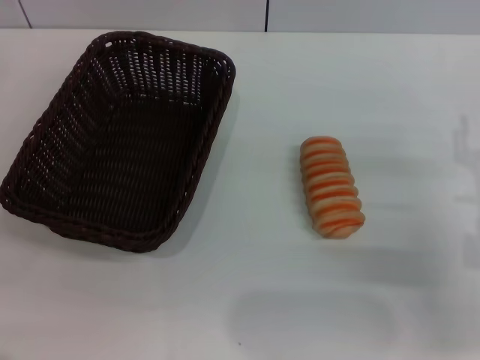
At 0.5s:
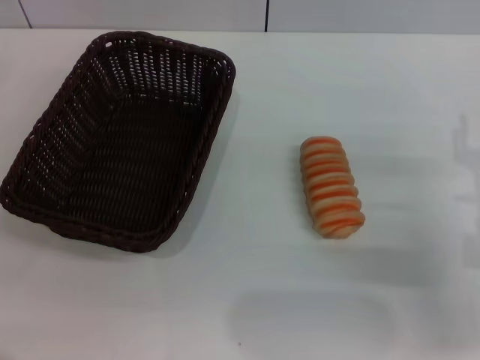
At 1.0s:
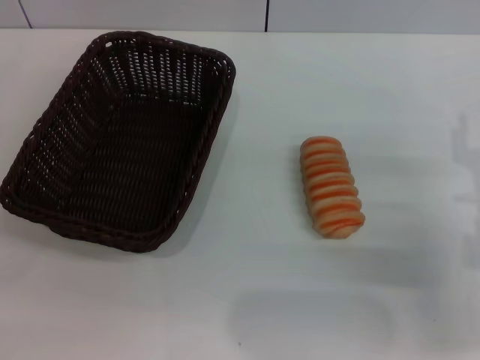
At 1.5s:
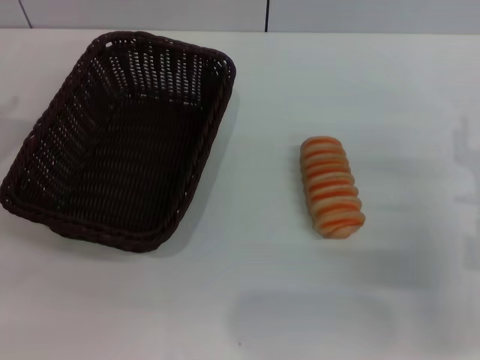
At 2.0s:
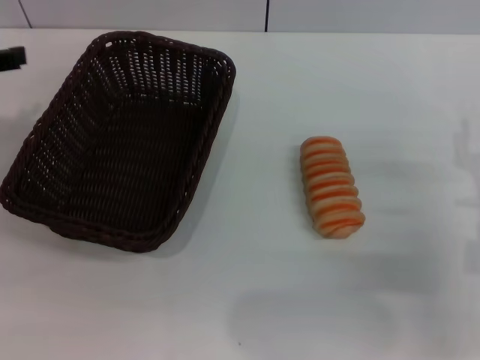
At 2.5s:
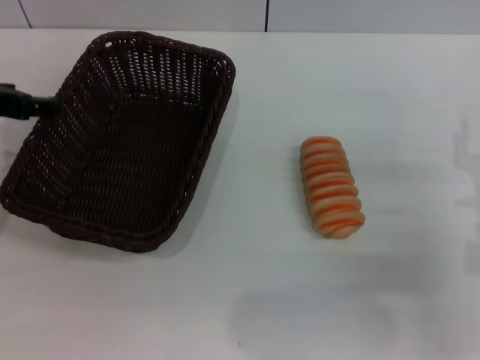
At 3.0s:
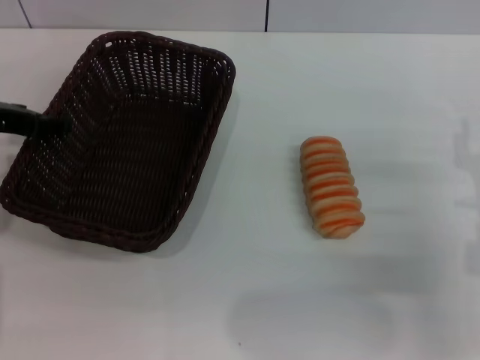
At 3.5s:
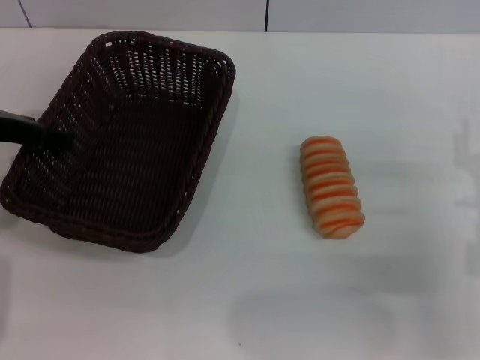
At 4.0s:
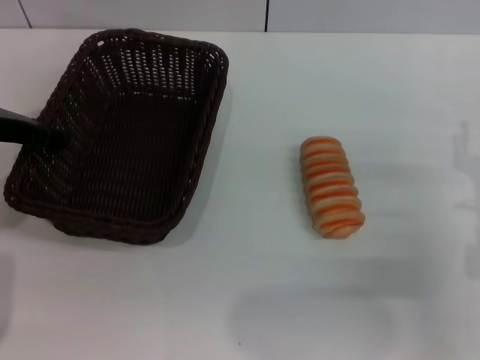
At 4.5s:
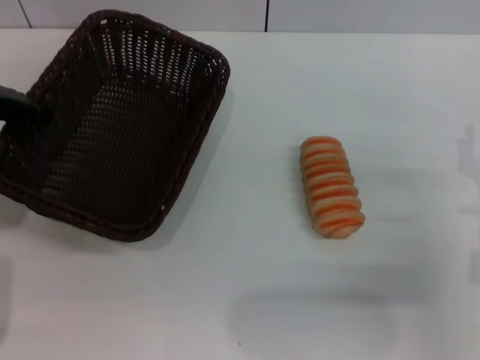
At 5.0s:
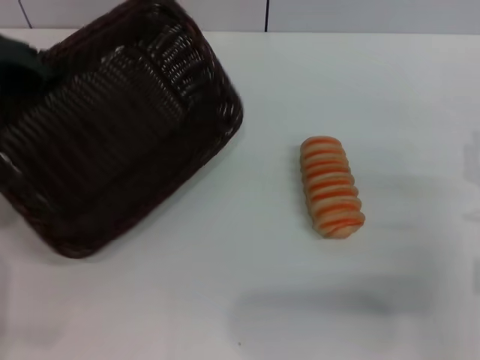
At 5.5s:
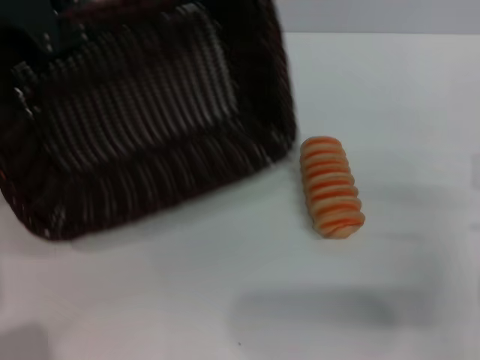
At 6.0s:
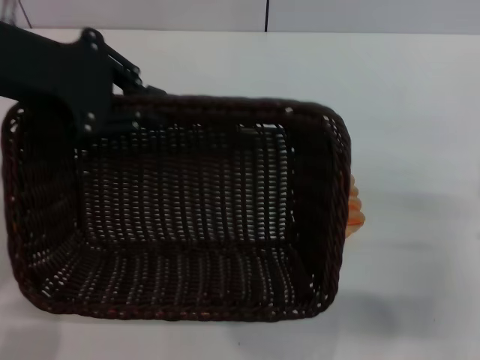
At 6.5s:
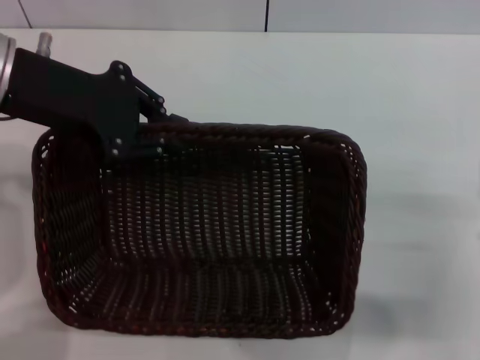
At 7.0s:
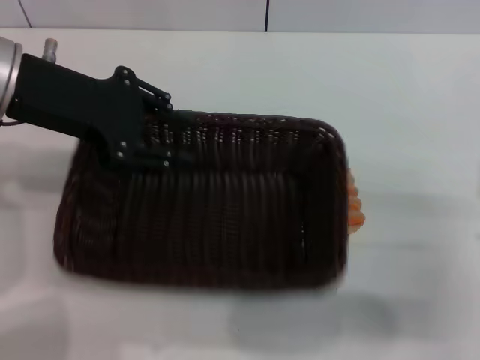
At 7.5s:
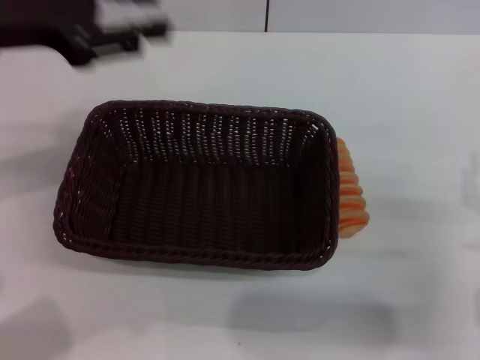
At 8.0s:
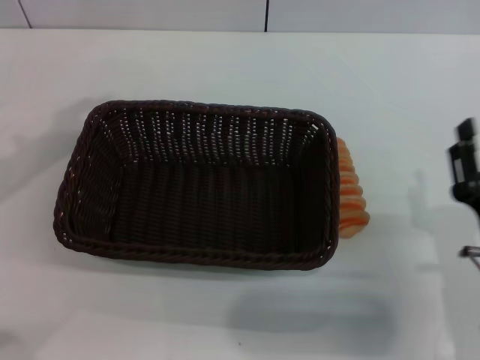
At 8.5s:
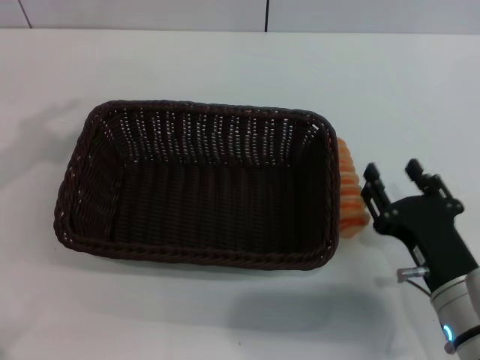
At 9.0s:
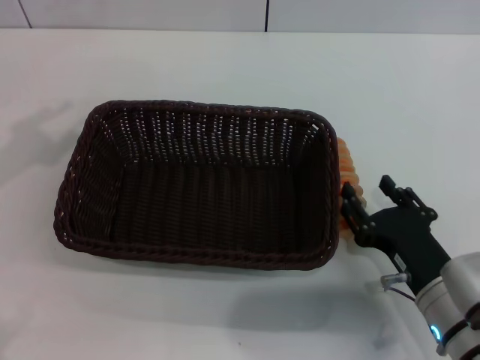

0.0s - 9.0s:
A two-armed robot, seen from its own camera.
Step, 0.0s - 4.5s: Pick up the dark basket with the left gripper.
Step, 5.0s - 7.0s: Place the dark basket in the center of view with the left gripper.
0.0s - 2.0s: The left gripper is displaced upward, forward and to the right by about 15 cm.
2.0s - 4.5s: The left gripper ends up roughly 5 cm from where it was, and closes its fingers.
4.5s - 7.0s: The left gripper travels to the right by some 5 cm.
7.0s - 9.0s: The left gripper moves to the left and backward, approximately 15 cm; the right gripper heads to the left, covering some 10 cm.

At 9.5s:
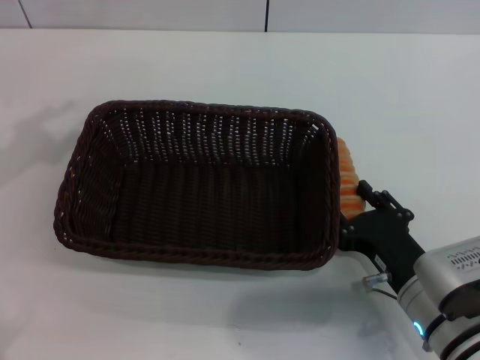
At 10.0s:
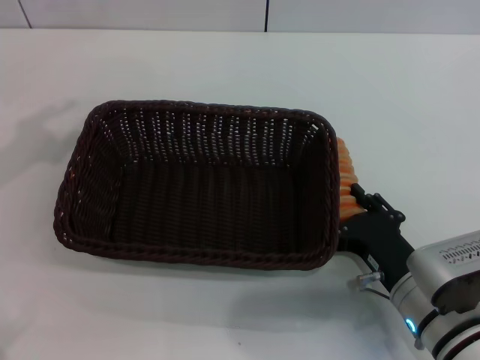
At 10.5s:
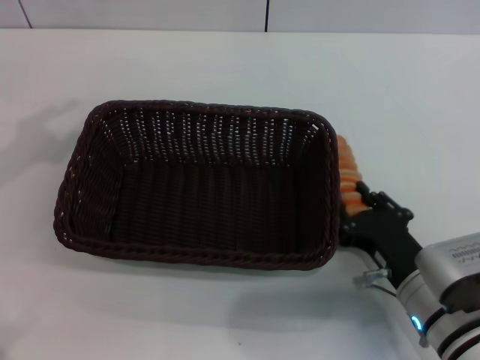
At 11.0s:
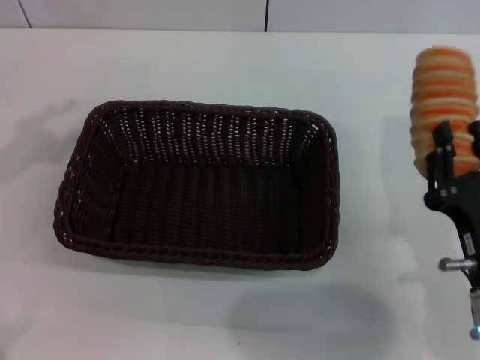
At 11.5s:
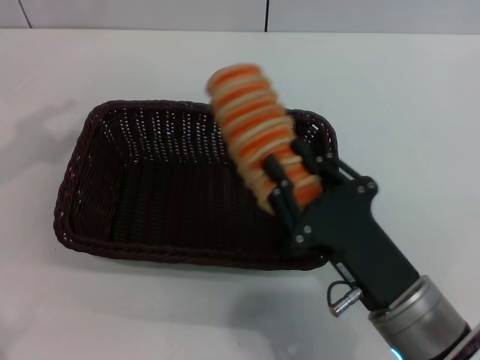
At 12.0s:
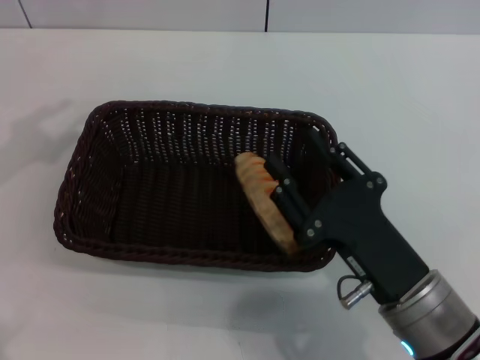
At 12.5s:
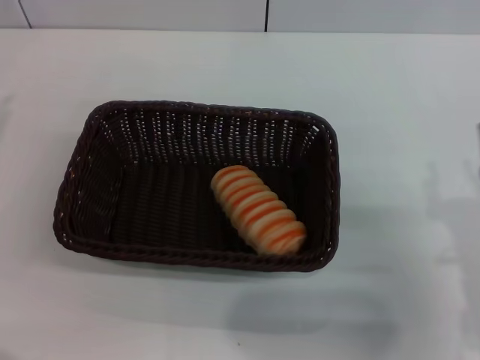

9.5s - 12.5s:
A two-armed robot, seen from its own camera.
Step, 11.0s - 11.5s: Place the long bread into the dark basket with the right gripper.
9.5s - 11.0s: The right gripper changes place by about 5 cm, and closes.
11.0s - 12.5s: The left gripper travels downward by about 10 cm, while the right gripper shifts by some 5 cm, and opens.

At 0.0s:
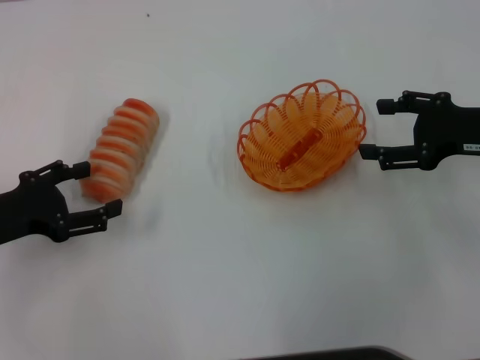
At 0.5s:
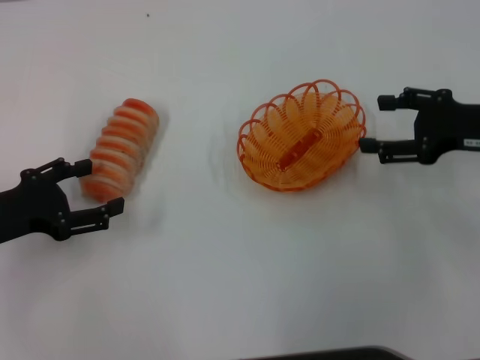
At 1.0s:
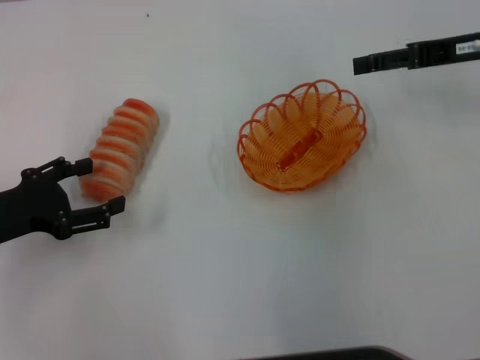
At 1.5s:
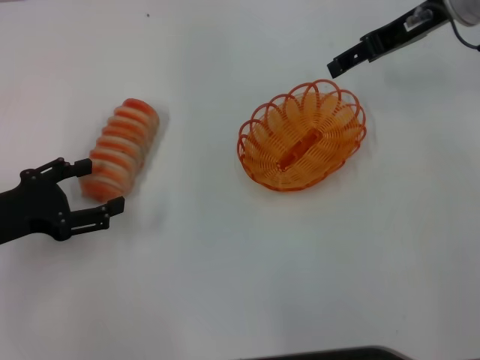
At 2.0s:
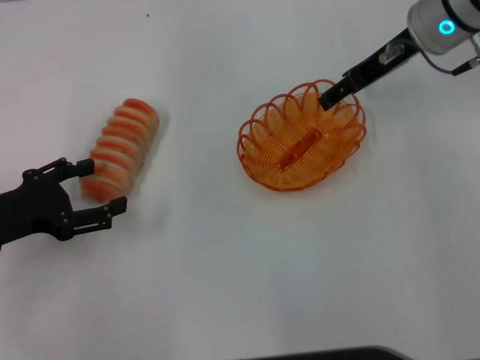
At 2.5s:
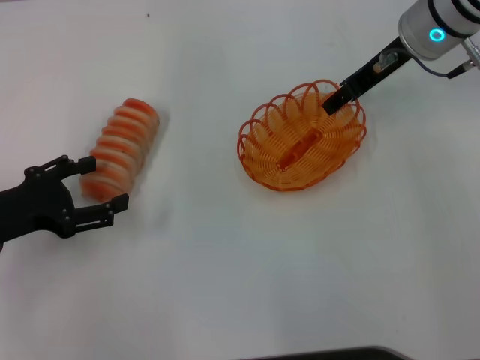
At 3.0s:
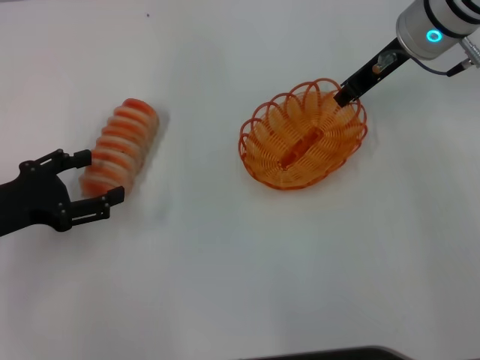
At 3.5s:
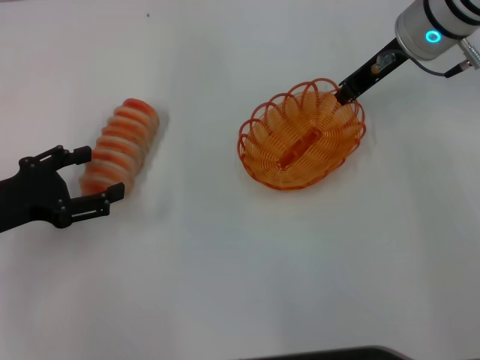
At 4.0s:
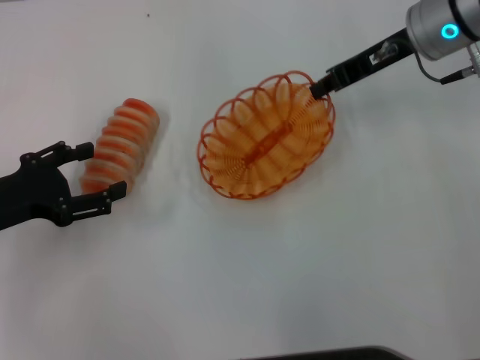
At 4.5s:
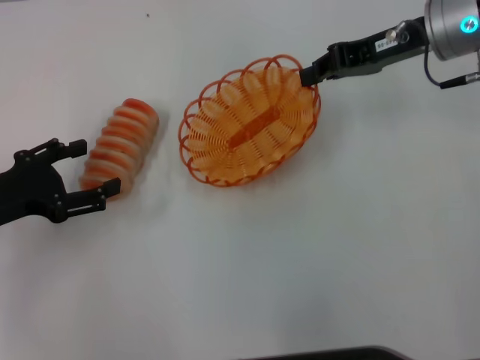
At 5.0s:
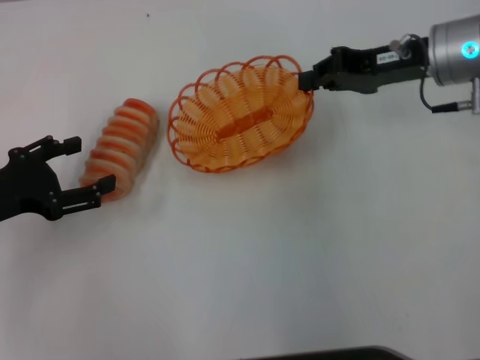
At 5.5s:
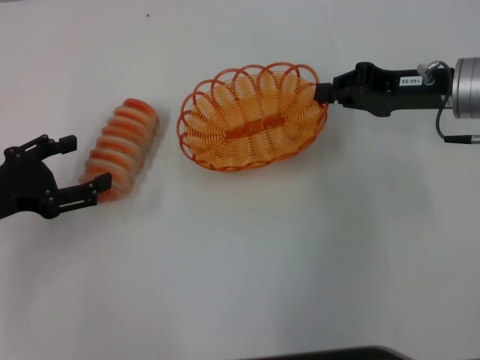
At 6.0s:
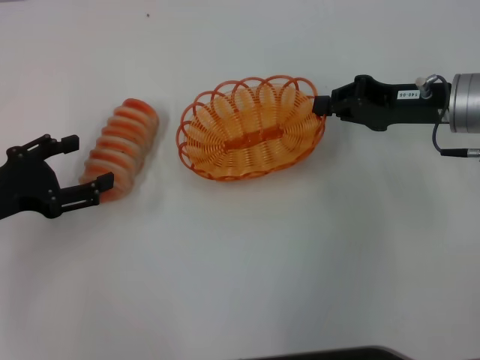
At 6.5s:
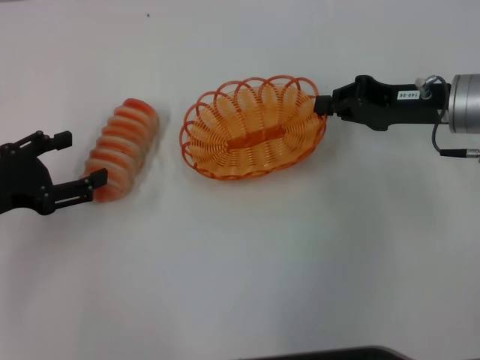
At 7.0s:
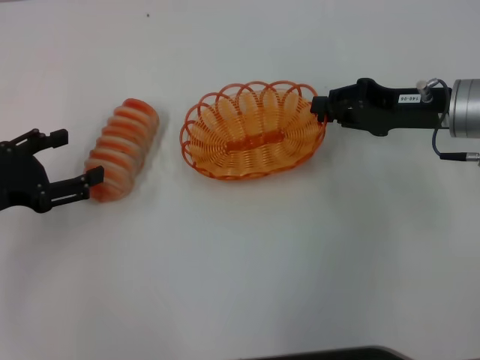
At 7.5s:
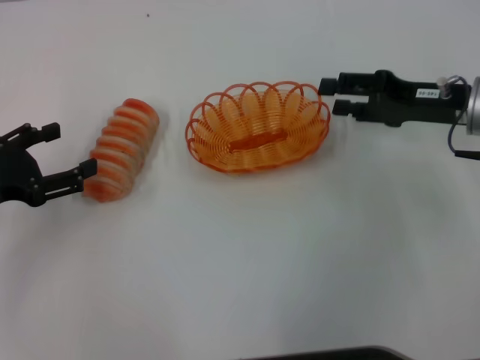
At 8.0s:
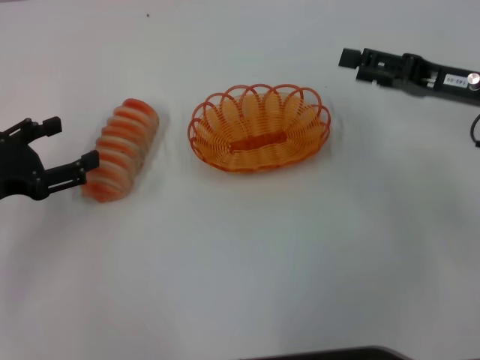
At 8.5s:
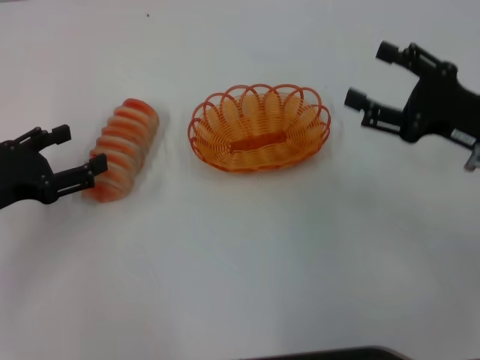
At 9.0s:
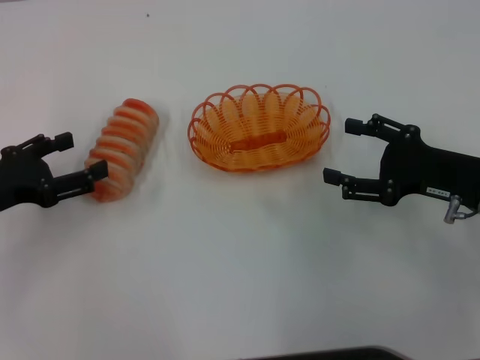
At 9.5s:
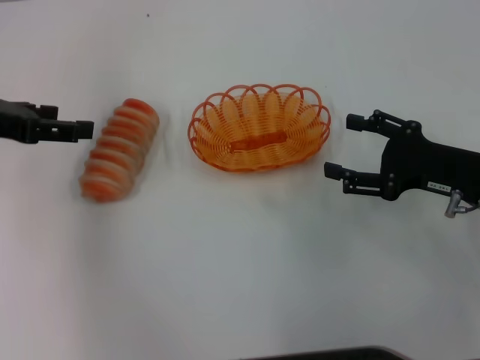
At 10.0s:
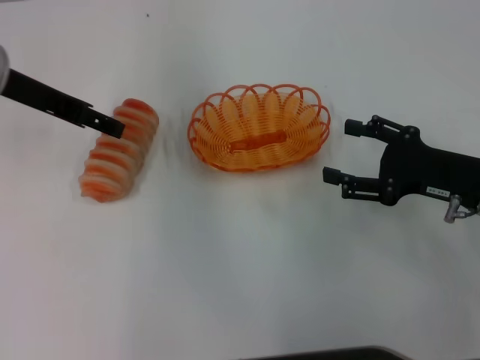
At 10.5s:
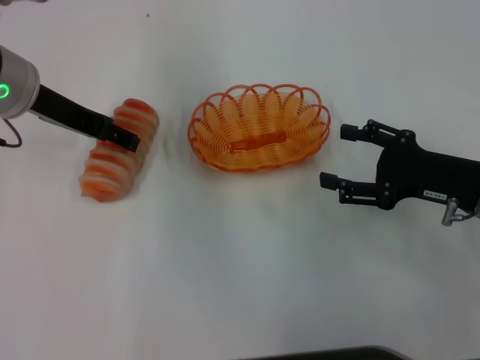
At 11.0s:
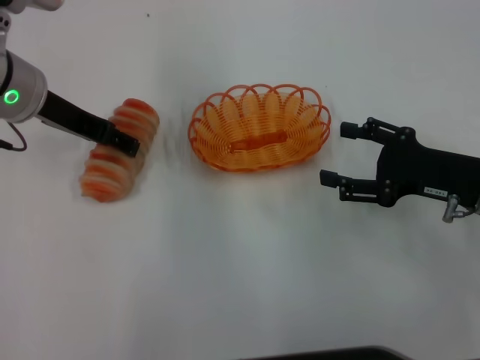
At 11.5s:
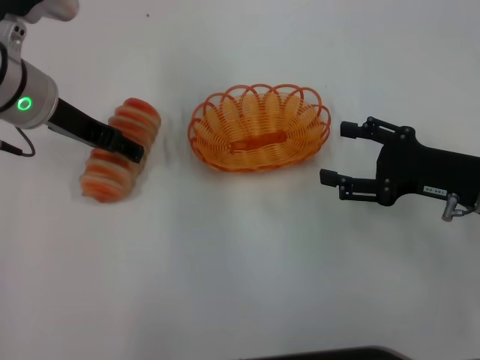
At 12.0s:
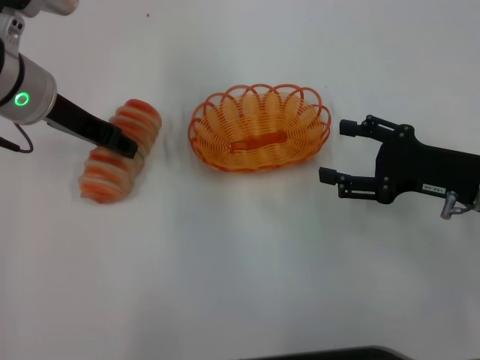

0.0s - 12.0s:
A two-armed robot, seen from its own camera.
Step, 0.0s - 4.0s: Pick up the basket with the right gripper.
Step, 4.5s - 7.5s: Place the basket in the center of view with the right gripper.
0.0s - 2.0s: The right gripper travels forward, to the left and upward by approximately 15 cm.
2.0s - 4.0s: The right gripper closes up.
4.0s - 6.0s: The right gripper is displaced downward and backward by some 10 cm.
6.0s - 8.0s: The right gripper opens.
8.0s - 10.0s: The right gripper heads backward and downward, covering about 10 cm. The left gripper moves forward, upward and to the right, about 20 cm.
10.0s - 12.0s: The grippers make only small movements.

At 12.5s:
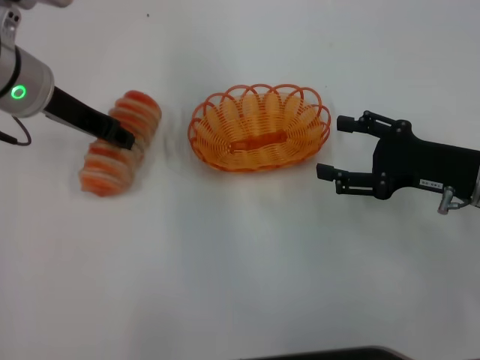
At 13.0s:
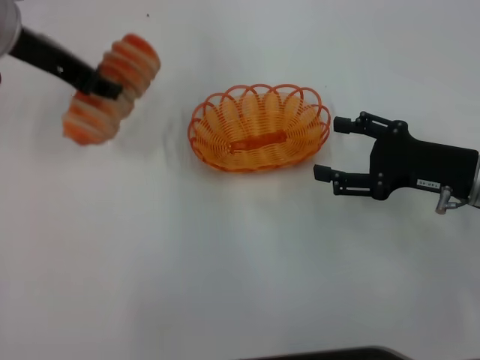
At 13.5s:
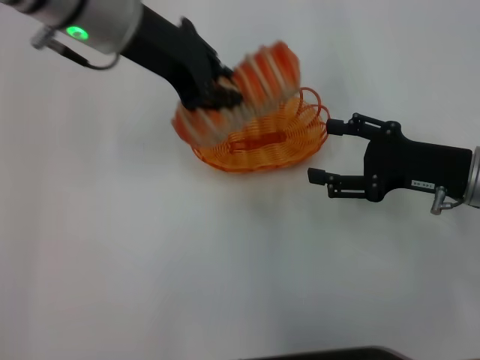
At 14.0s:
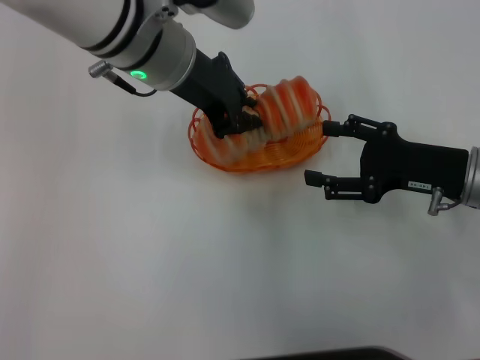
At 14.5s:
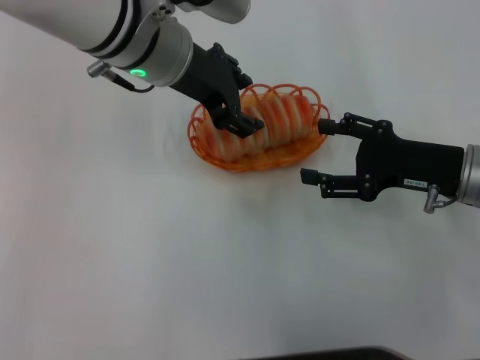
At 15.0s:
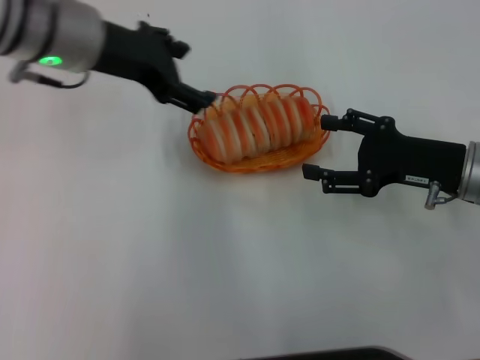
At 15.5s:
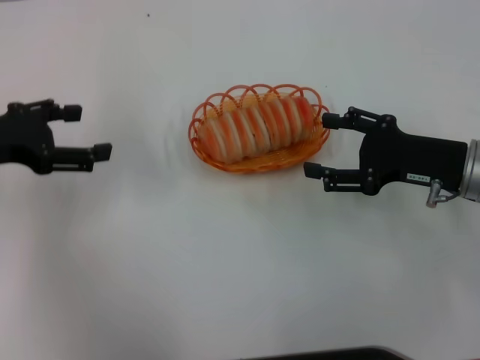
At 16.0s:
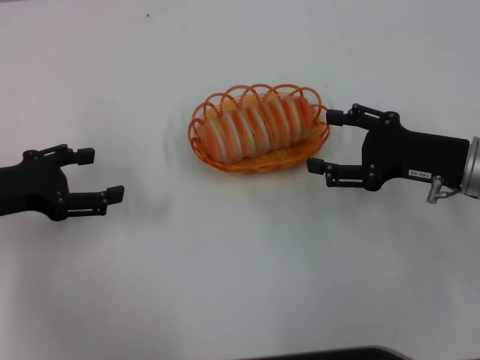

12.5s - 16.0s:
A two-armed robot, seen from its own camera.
Step, 13.0s - 15.0s: Place the long bread into the basket with the left gripper.
12.5s - 14.5s: The left gripper travels to the right by some 10 cm.
14.5s - 16.0s: The left gripper goes roughly 25 cm to the left and downward, and opens.
